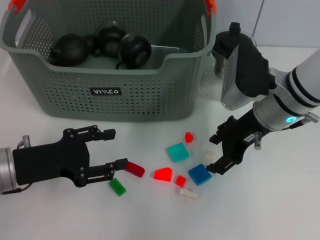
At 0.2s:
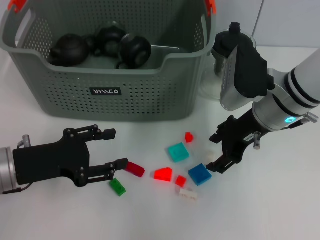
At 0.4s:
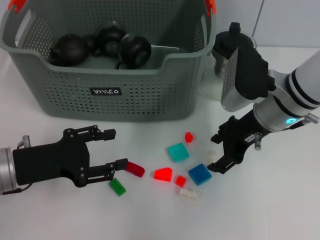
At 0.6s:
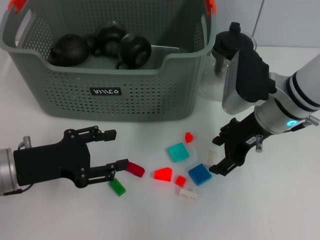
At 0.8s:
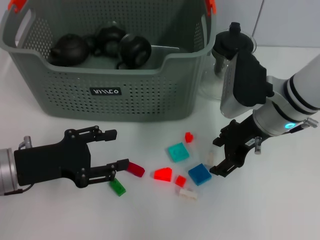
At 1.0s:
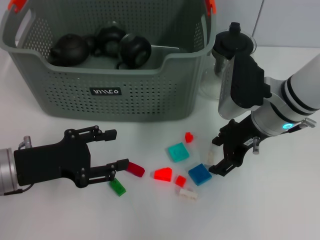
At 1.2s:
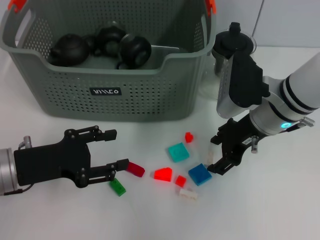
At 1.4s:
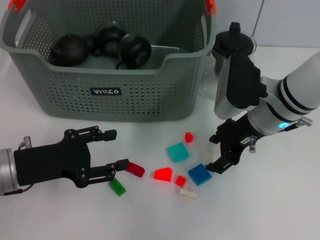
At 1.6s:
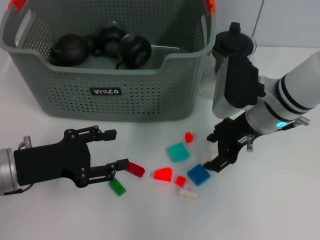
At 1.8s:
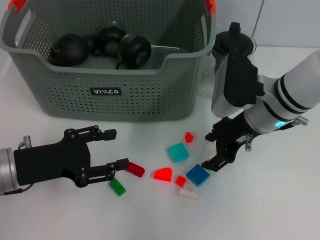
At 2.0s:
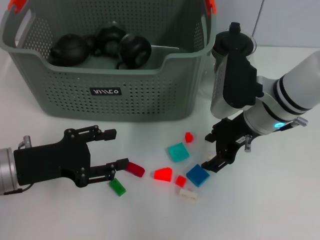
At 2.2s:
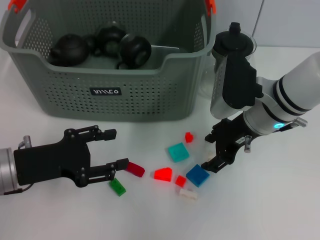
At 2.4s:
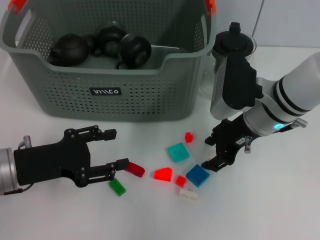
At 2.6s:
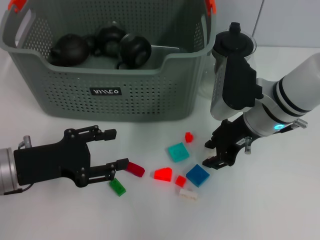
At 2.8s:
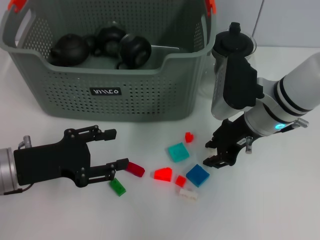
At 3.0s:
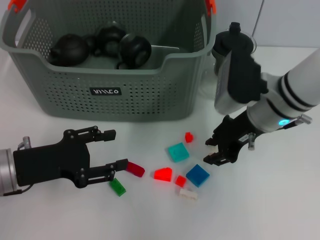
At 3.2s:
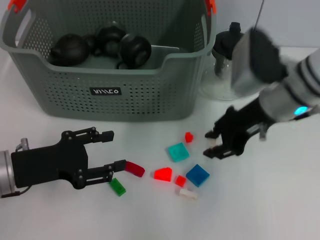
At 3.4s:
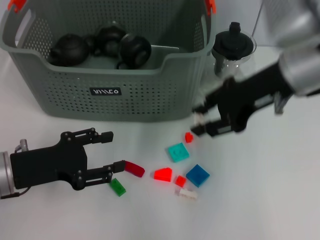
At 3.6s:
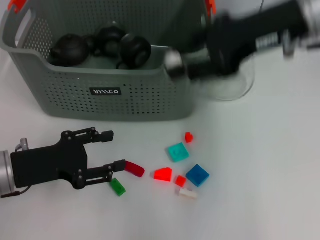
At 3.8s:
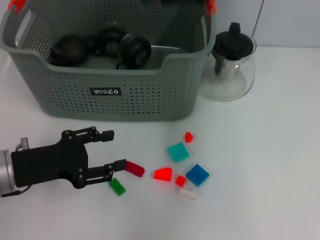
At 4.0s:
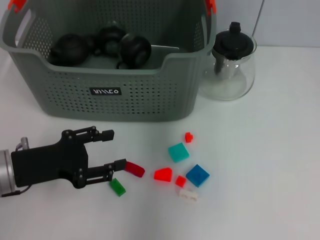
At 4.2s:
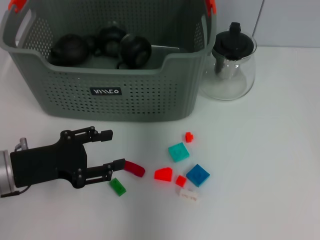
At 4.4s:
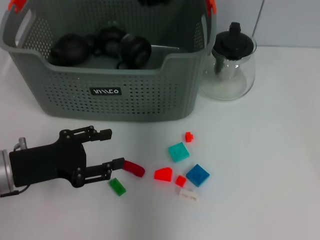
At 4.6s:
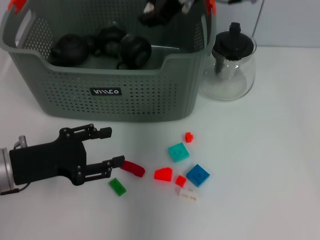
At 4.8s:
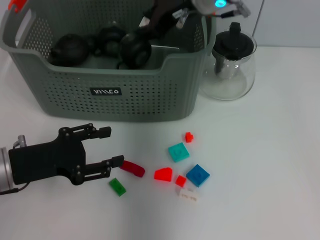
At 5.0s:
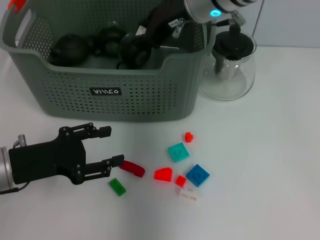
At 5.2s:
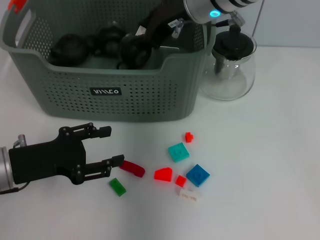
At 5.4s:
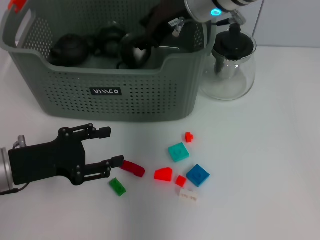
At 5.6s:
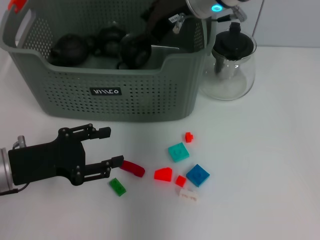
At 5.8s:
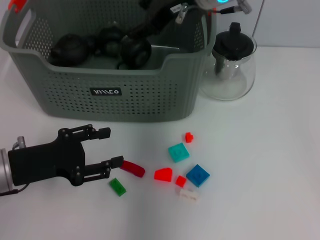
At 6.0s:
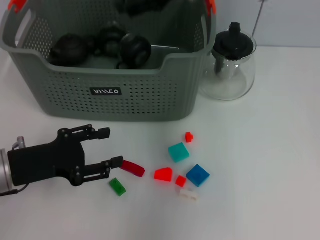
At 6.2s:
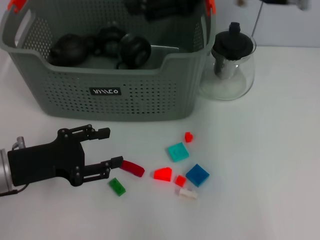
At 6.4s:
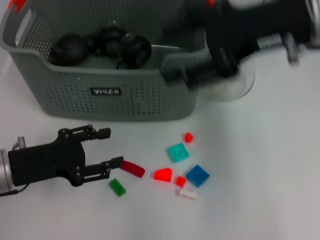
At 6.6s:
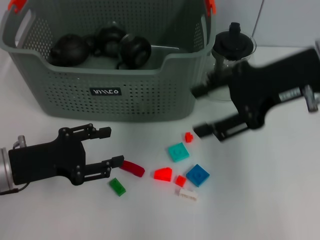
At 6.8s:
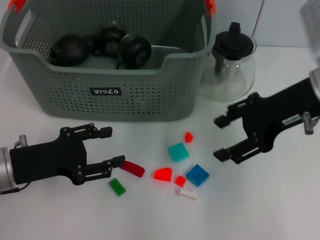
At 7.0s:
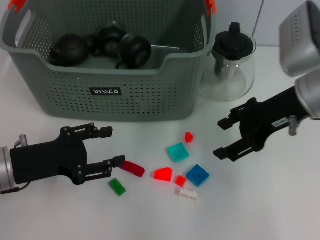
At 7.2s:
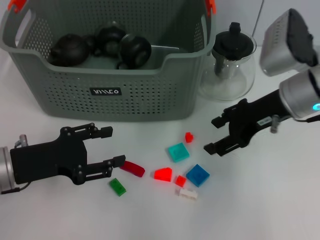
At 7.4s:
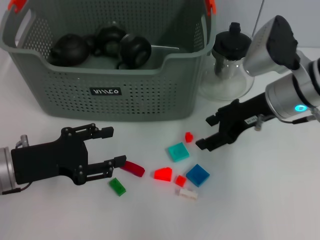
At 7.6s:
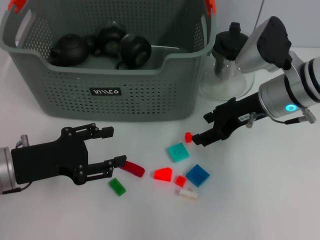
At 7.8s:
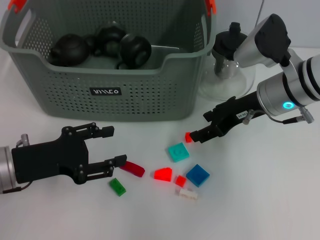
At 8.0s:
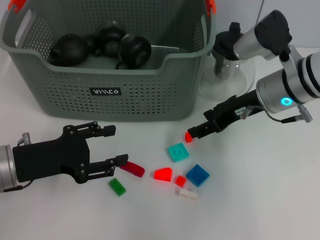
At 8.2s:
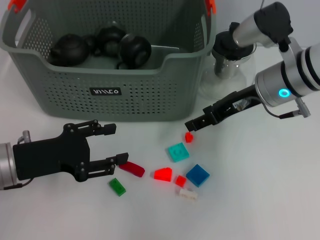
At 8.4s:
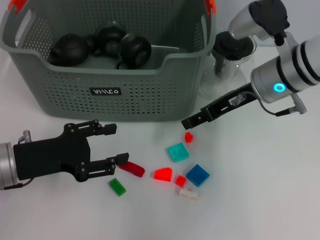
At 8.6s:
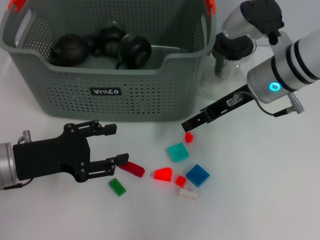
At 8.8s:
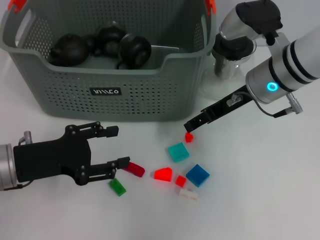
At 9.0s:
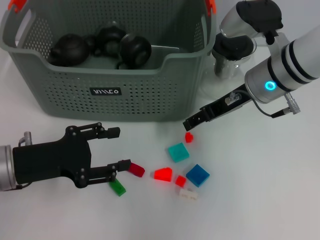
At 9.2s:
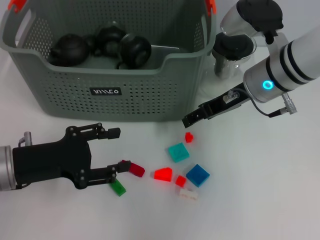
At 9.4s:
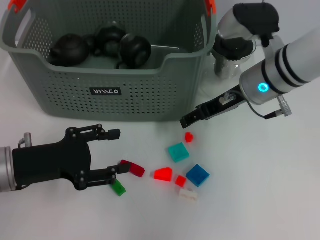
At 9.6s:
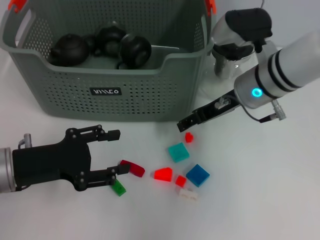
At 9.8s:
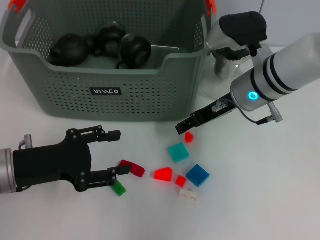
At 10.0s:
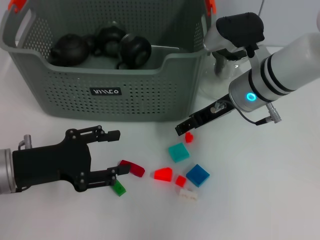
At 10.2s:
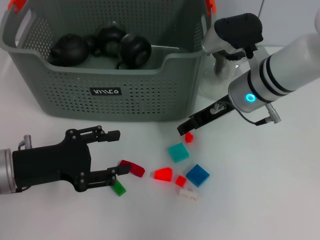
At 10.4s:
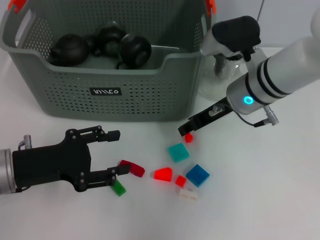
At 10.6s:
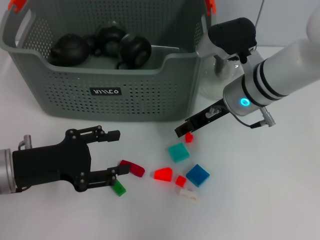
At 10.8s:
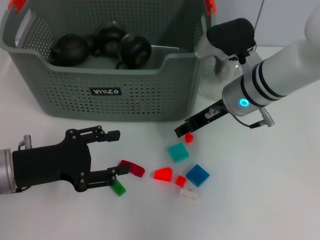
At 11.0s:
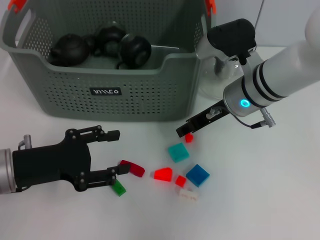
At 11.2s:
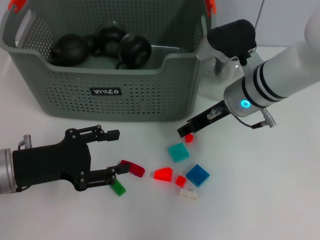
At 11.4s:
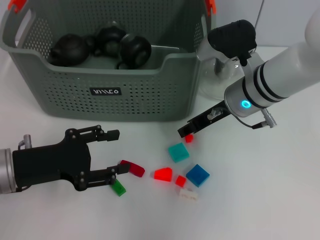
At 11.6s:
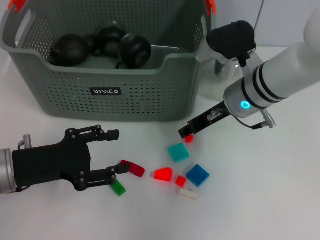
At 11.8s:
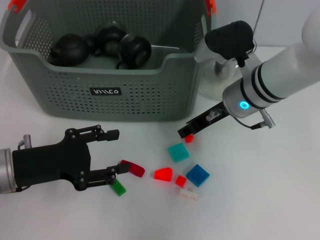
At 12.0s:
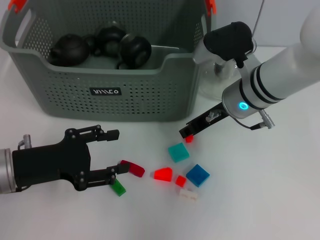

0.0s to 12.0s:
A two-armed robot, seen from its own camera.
Task of the whole recording: pick up the teacup on the table and place it into the storage bin, pick up the block on the table and place it into the storage bin.
Step, 0.0s to 2.6s: Grasp the white block with right gripper.
Step, 2.8s to 5.6s: Place the white block in the storage box with right gripper.
0.0s to 1.6s: The grippers move only a little.
1.6s to 3.0s: The right gripper closes its fingers.
3.0s to 4.4s: The right gripper travels upward, forward and to the left by some 20 cm.
4.4s to 6.0s: The right gripper opens its fingers.
6.0s to 7.6s: The right gripper moves downward and to the right, roughly 20 cm.
9.0s to 10.4s: The grippers move only a little.
10.4s to 12.0s: Both grippers stay put.

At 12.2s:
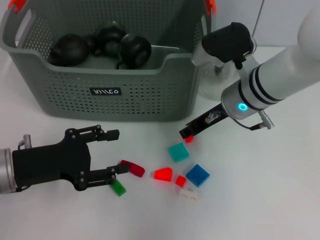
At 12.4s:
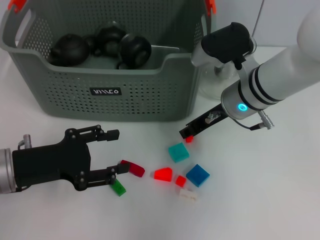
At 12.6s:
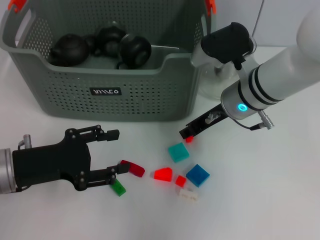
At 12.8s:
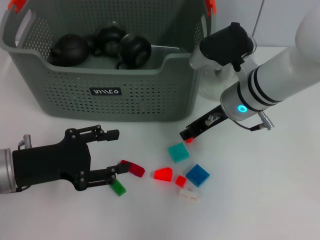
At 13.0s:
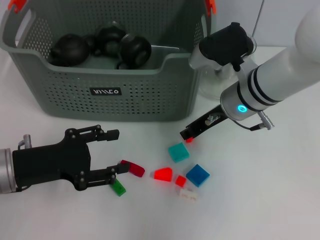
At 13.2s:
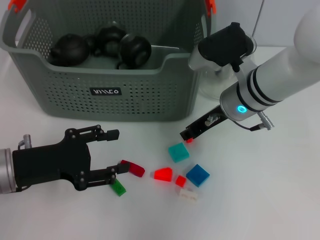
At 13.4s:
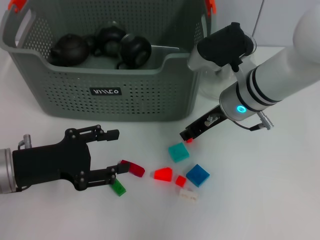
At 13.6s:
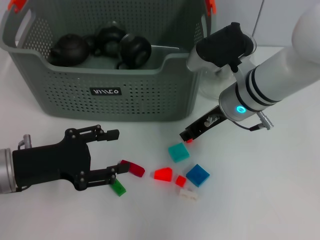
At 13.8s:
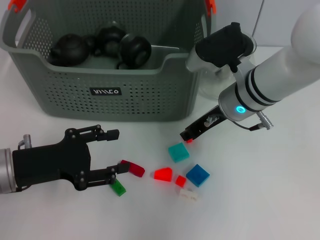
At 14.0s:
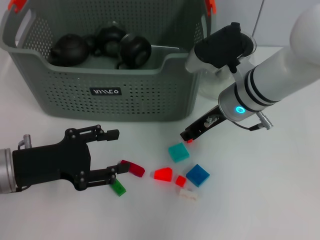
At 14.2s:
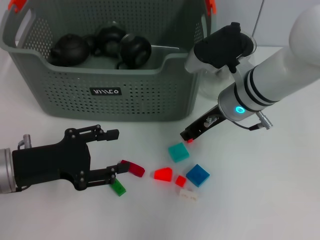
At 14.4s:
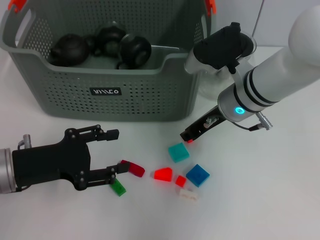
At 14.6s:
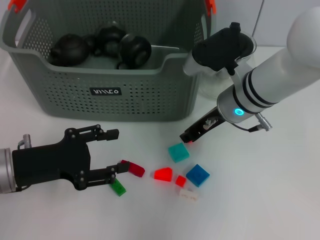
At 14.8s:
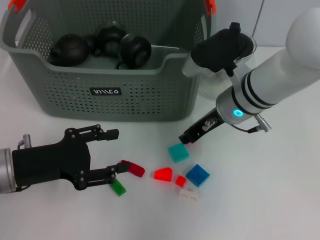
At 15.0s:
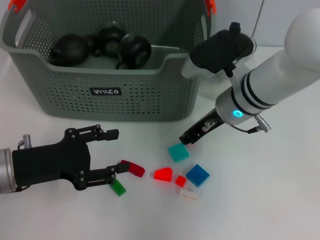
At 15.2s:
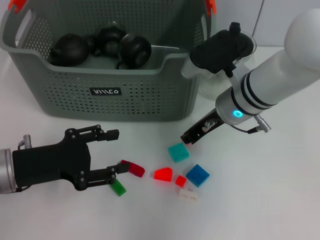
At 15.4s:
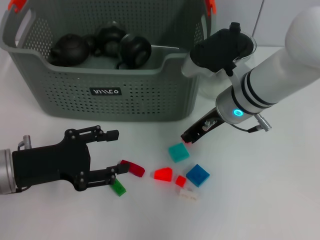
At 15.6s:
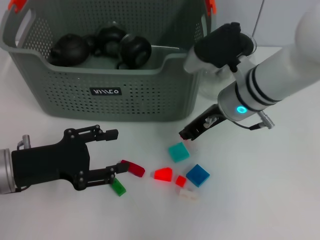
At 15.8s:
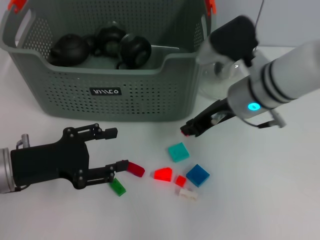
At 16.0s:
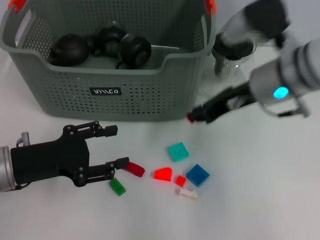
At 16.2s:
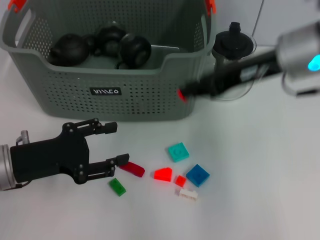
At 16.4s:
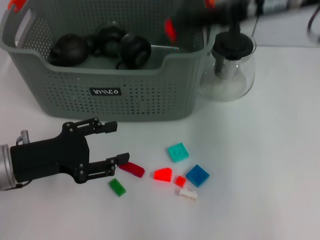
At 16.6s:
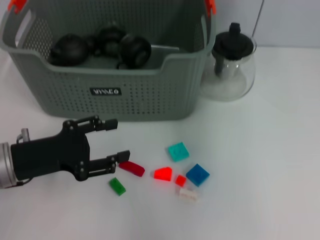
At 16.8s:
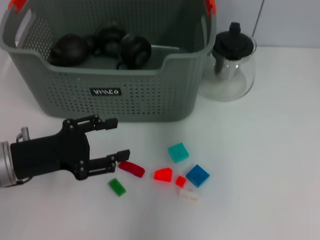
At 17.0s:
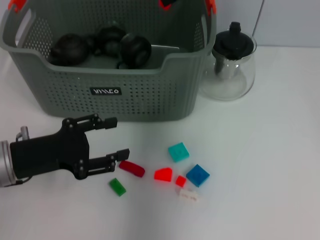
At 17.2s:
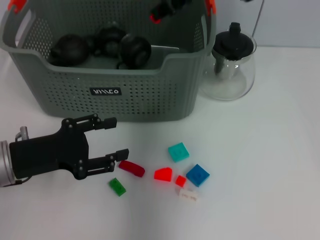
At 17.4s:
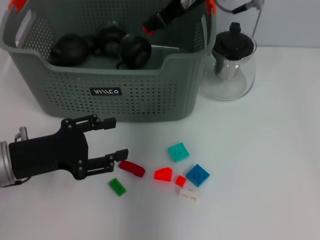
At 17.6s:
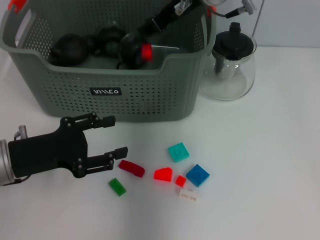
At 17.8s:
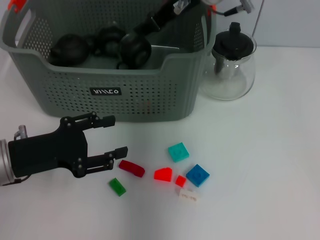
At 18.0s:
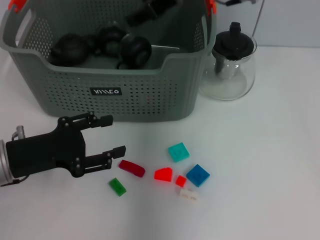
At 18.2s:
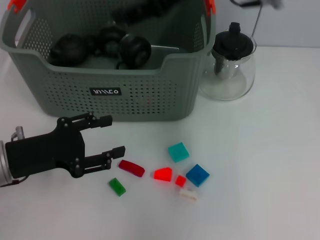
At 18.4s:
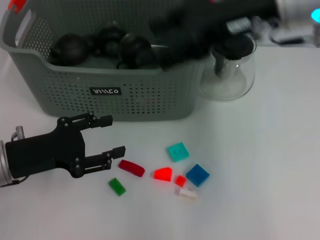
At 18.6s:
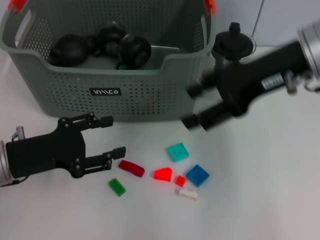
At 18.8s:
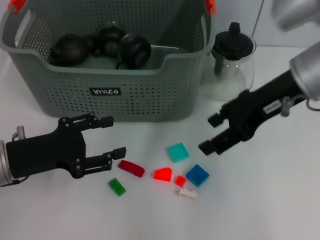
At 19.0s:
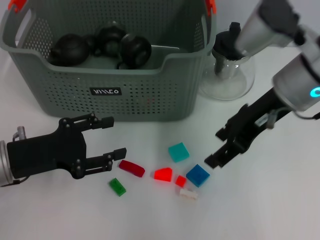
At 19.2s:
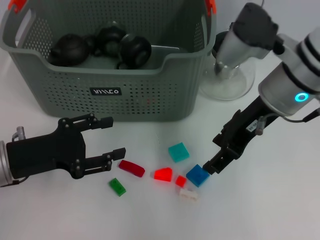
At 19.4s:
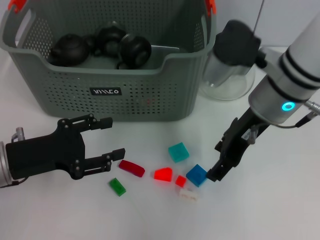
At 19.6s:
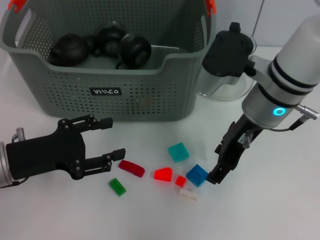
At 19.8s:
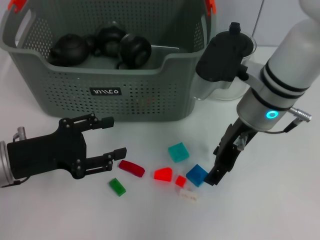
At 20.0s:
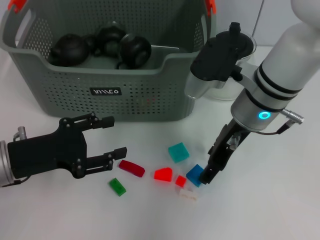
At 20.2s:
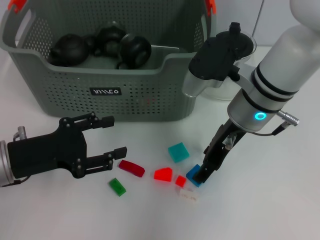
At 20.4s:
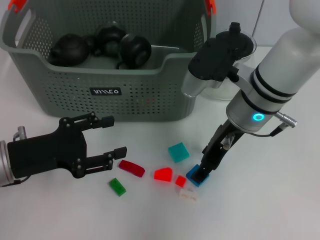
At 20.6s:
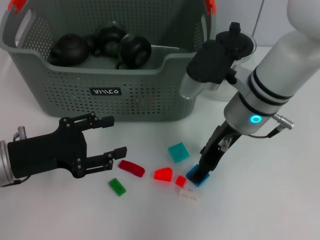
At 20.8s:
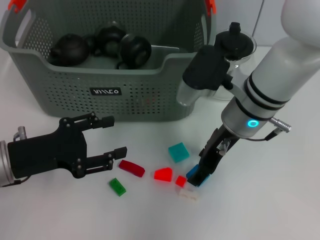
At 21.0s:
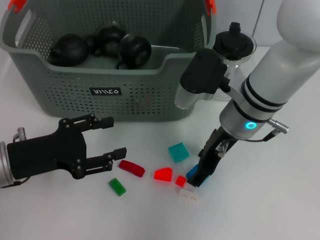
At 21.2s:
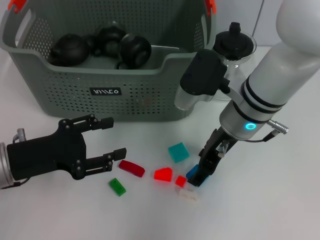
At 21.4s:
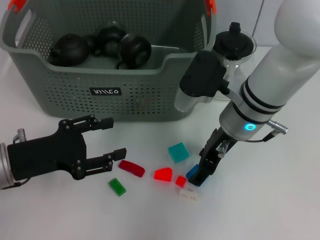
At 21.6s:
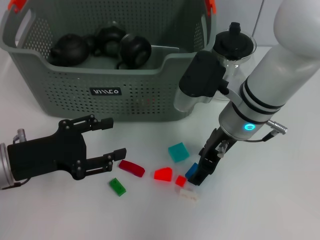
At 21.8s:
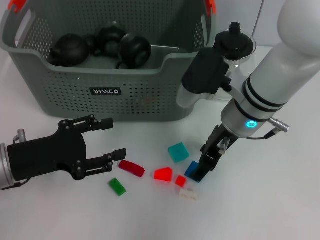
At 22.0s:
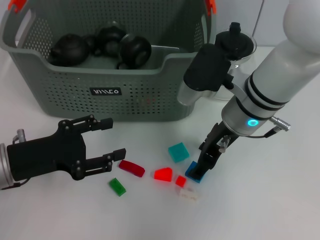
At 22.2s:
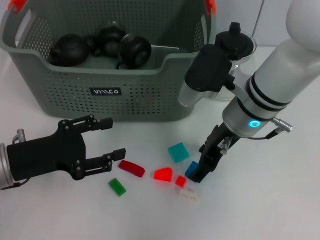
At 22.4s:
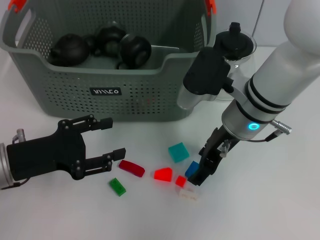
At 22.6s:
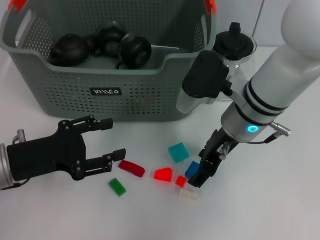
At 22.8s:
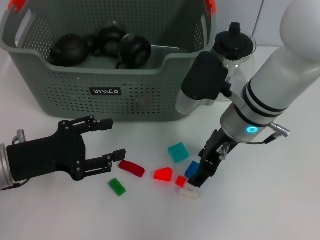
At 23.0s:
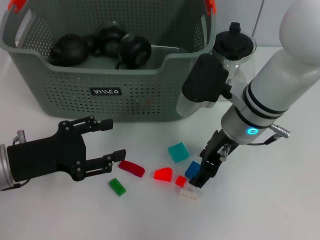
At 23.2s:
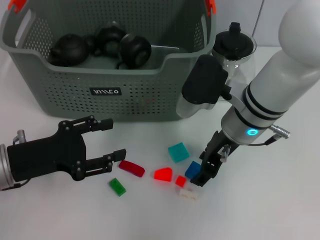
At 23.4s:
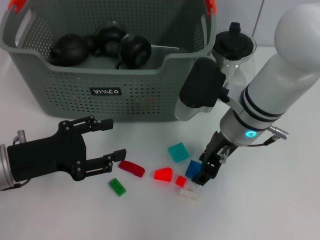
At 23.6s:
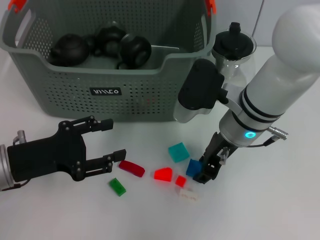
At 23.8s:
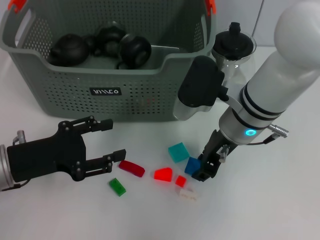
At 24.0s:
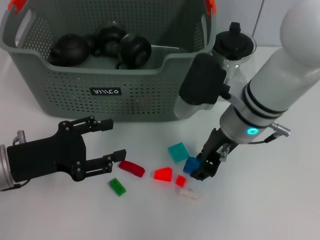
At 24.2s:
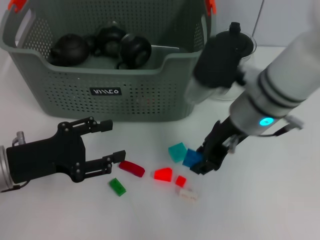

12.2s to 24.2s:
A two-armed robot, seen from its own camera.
Task of the whole recording: pick up the teacup on the table and place it into the storage bin, pick up the block on the table and place it into the storage bin.
Step, 12.2s to 15.0s: Grasp the orange block with right gripper.
Step, 15.2s to 17.6s: Place the orange block in the storage box with right gripper.
Step, 17.8s to 23.6s: Grasp the dark blue block with right gripper.
12.2s to 13.8s: The two grippers keep their place.
13.8s to 15.2s: Both grippers stay put.
15.2s to 16.6s: The right gripper moves upward, approximately 20 cm.
16.6s to 18.2s: The right gripper goes some 5 cm to the left, and opens.
18.2s to 19.8s: The right gripper goes some 15 cm downward.
19.8s to 21.2s: The grippers make only small movements.
21.2s to 22.6s: Neither gripper changes place.
22.6s to 24.2s: The right gripper closes its fingers.
